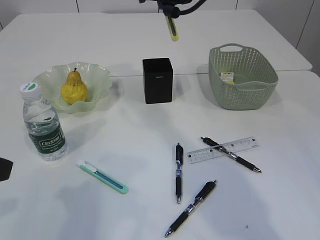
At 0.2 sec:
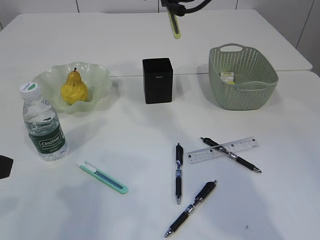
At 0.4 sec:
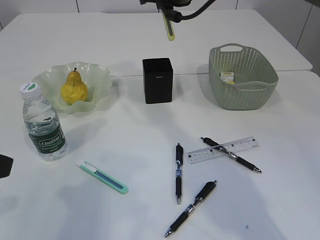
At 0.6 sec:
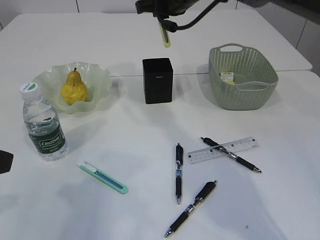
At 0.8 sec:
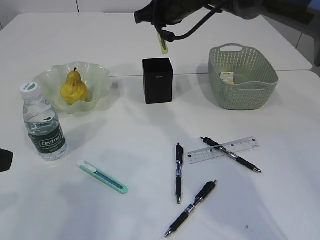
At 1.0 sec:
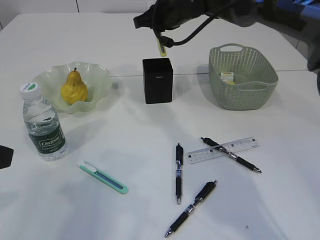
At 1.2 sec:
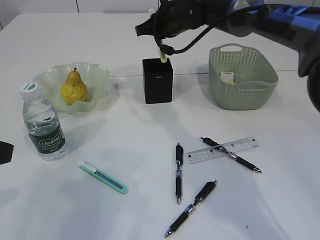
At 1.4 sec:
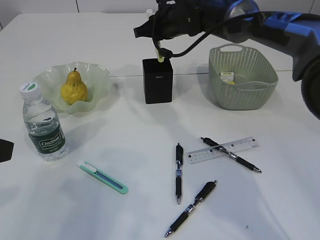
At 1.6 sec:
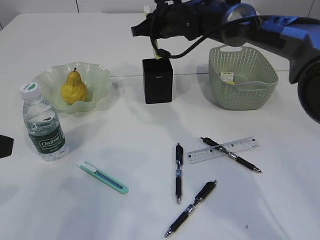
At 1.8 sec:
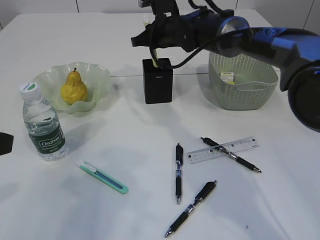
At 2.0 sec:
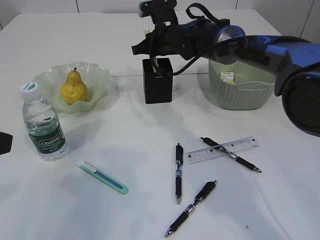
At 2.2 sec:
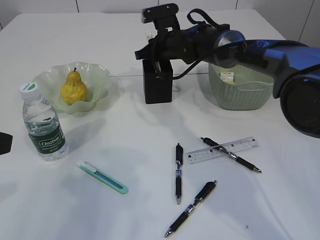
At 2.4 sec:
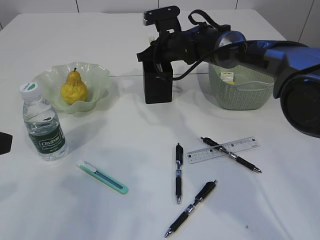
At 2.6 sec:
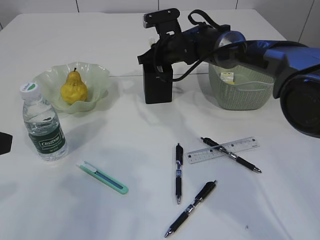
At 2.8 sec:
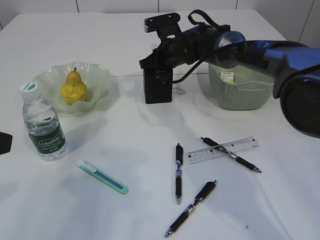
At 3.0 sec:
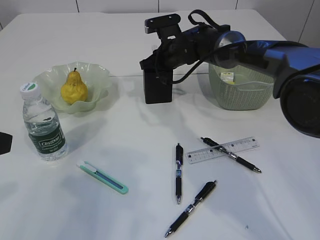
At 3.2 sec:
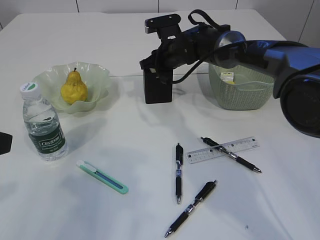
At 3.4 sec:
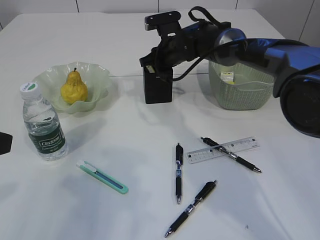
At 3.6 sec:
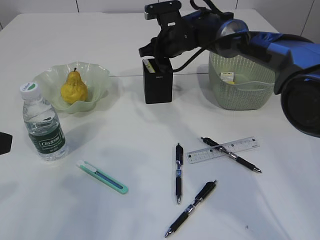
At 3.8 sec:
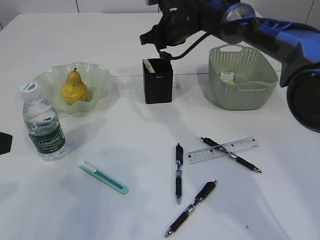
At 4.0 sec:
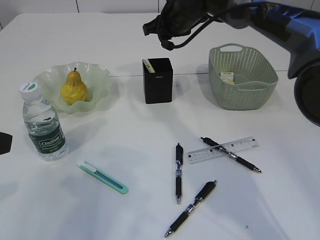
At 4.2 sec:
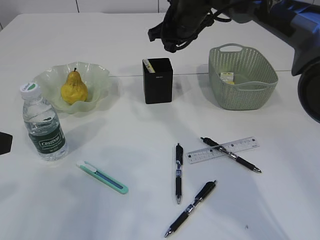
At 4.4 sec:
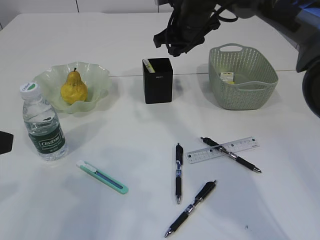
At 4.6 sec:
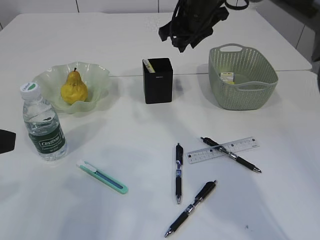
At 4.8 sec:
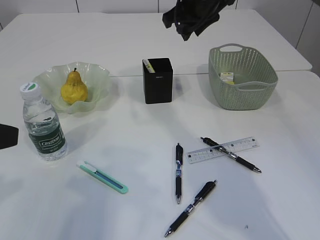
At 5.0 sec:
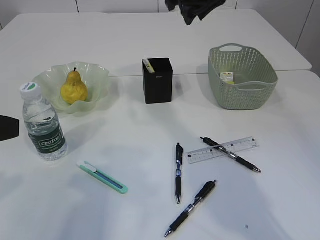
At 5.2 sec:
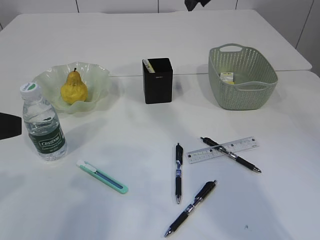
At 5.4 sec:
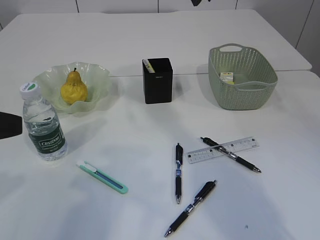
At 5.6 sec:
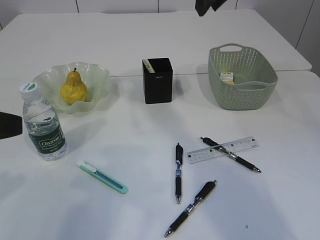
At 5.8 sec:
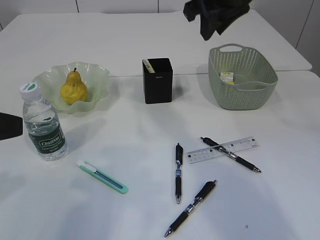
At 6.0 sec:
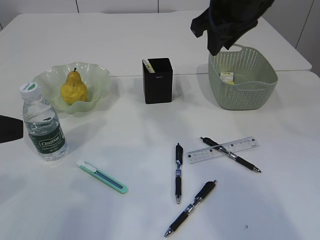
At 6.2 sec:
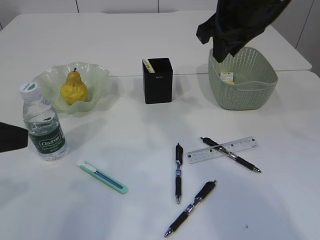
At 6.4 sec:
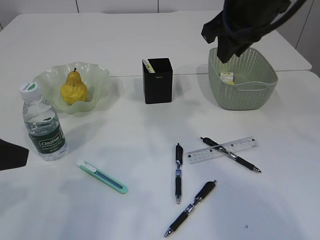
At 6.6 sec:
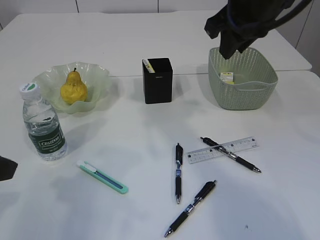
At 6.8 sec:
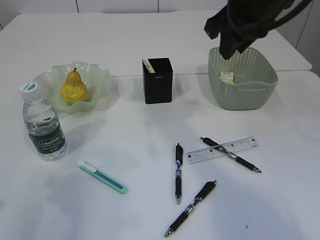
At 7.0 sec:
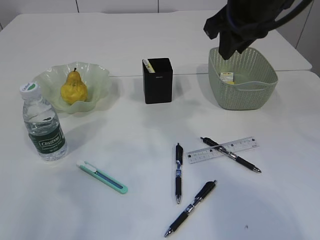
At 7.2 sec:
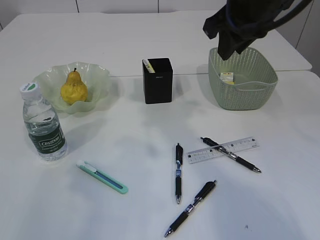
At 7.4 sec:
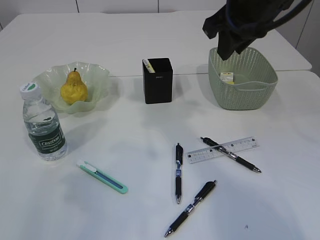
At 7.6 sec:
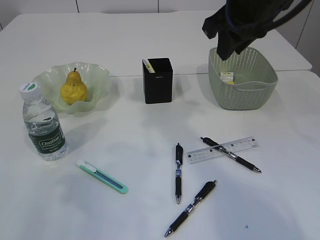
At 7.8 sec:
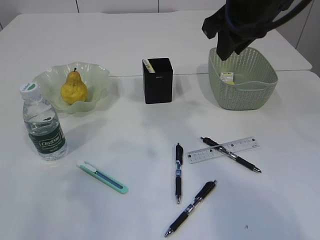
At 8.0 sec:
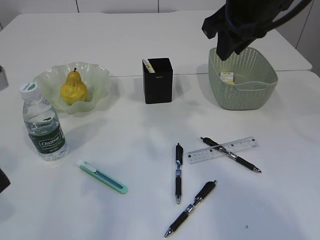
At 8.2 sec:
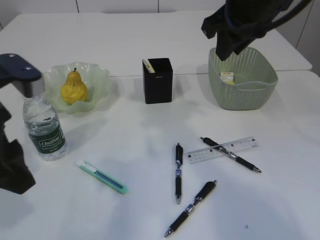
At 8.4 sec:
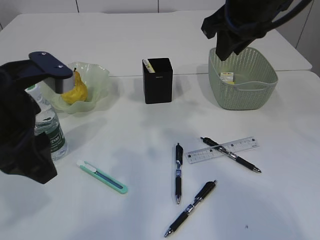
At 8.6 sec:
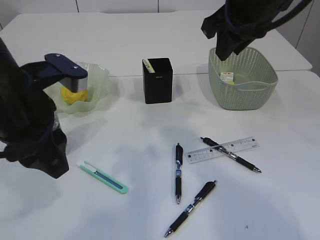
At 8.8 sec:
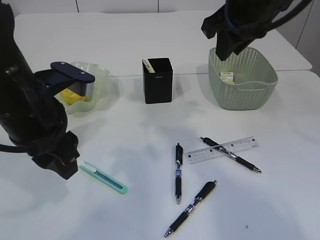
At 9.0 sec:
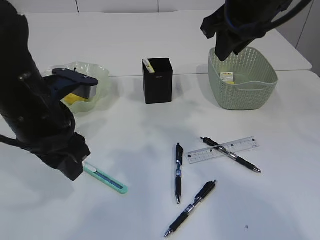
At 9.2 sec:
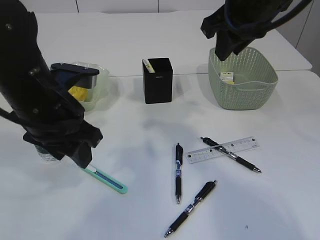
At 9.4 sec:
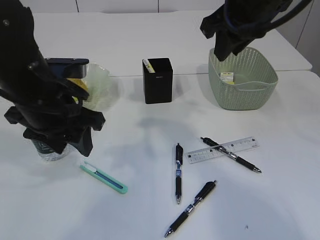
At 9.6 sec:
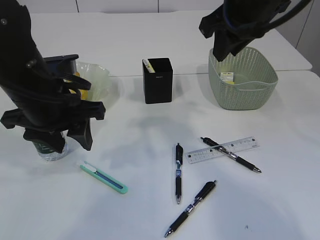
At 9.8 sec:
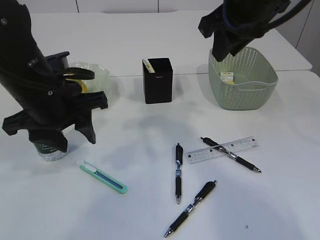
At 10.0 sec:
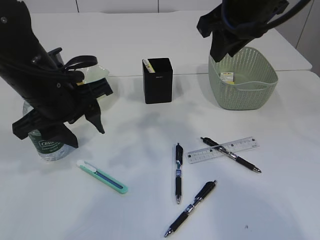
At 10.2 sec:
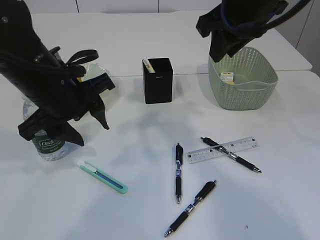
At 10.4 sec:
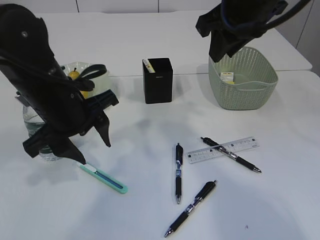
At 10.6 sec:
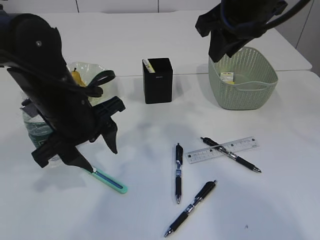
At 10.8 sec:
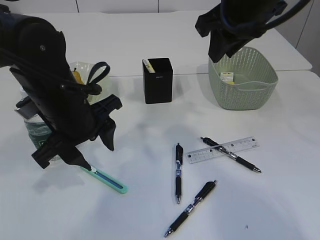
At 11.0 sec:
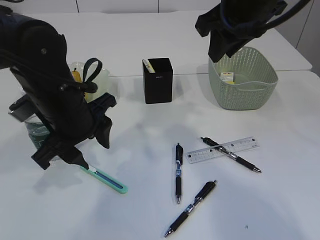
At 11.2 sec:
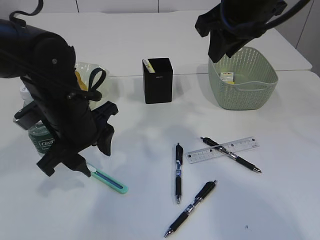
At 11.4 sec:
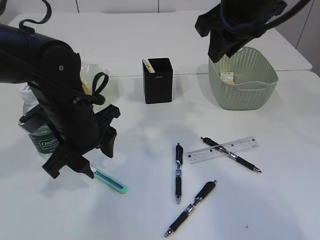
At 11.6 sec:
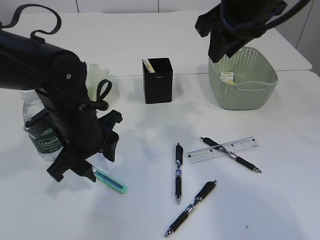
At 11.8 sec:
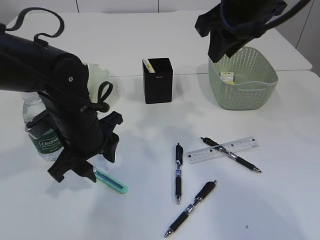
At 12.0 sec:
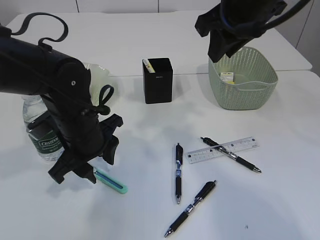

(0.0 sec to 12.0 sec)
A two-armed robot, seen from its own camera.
Step, 0.0 sec - 4.2 sec: place the yellow knife into the pen holder.
0.0 sec - 1.6 sec: The right gripper is displaced downward and forward by approximately 10 cm.
1.6 sec - 3.0 sec: The right gripper travels downward by some 5 cm.
3.0 sec - 4.4 sec: The right gripper moves upward, about 10 cm.
4.4 sec - 6.0 sec: The right gripper travels backward and upward by some 15 cm.
7.6 sec - 9.0 sec: The left gripper is displaced to the right, forward and downward by some 15 cm.
10.4 sec - 12.0 sec: The left gripper heads downward, covering some 5 cm.

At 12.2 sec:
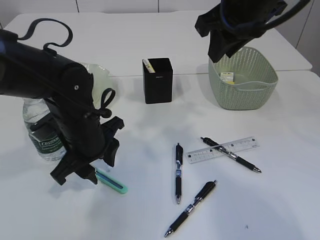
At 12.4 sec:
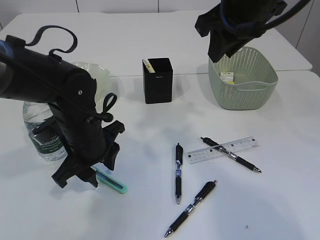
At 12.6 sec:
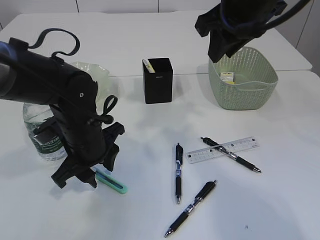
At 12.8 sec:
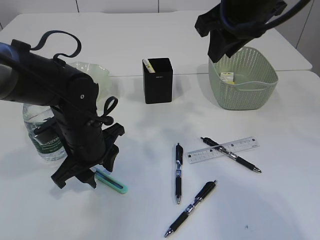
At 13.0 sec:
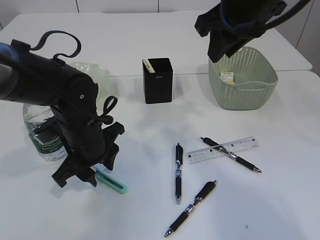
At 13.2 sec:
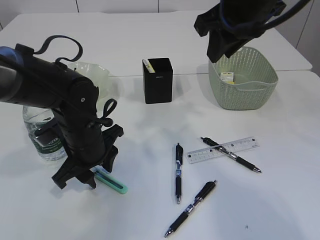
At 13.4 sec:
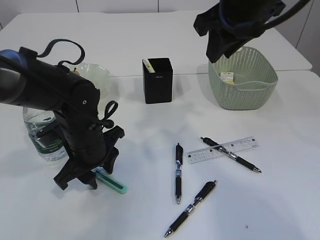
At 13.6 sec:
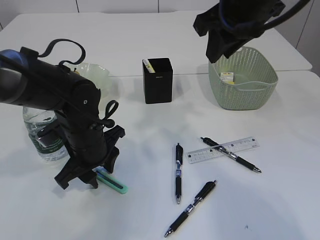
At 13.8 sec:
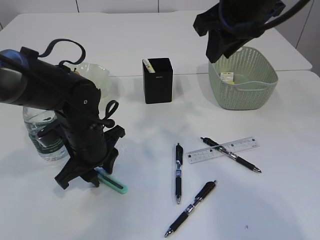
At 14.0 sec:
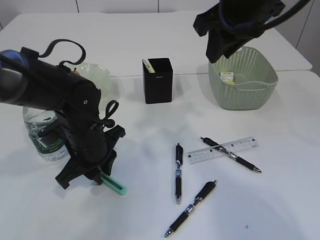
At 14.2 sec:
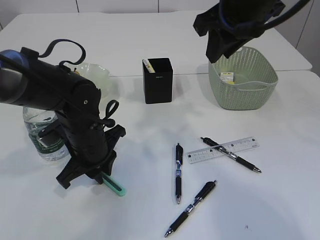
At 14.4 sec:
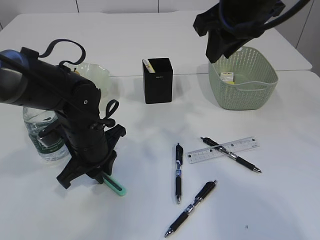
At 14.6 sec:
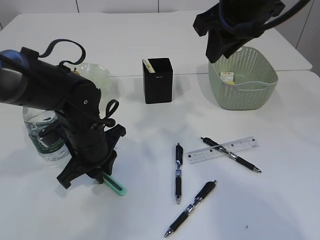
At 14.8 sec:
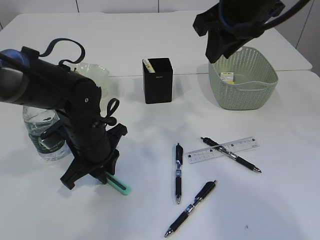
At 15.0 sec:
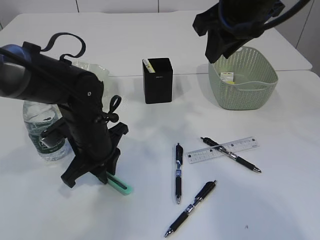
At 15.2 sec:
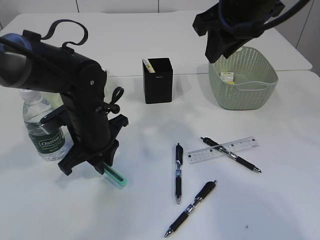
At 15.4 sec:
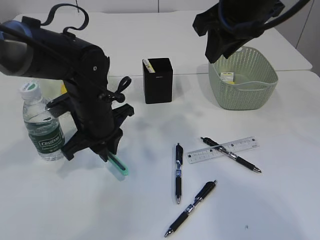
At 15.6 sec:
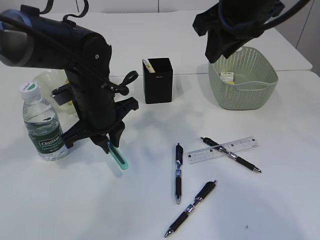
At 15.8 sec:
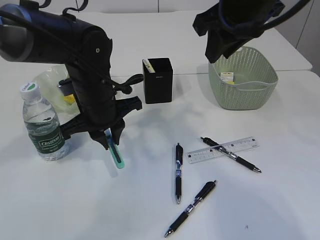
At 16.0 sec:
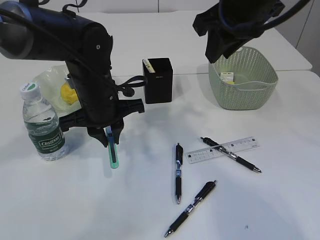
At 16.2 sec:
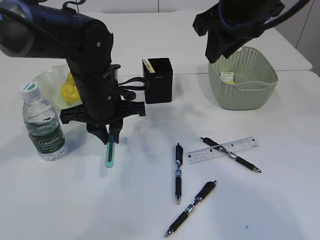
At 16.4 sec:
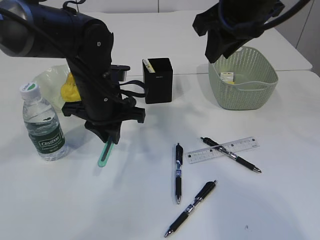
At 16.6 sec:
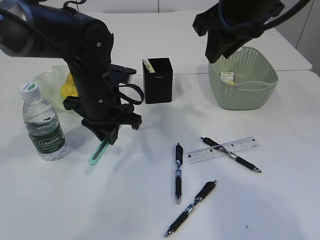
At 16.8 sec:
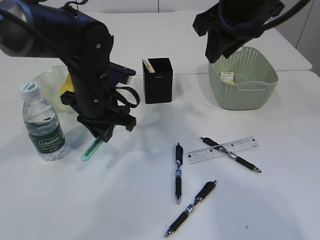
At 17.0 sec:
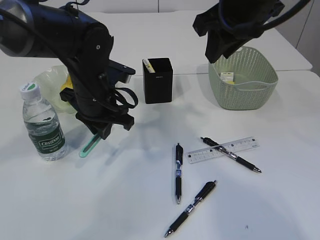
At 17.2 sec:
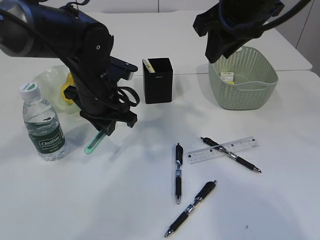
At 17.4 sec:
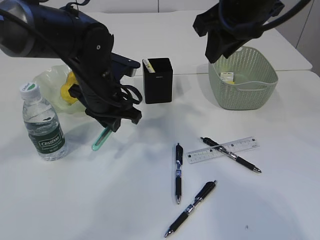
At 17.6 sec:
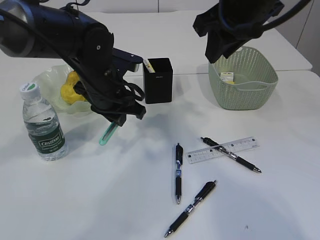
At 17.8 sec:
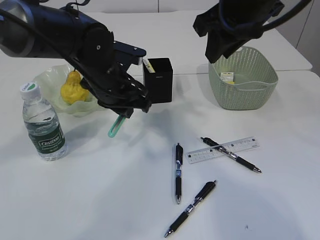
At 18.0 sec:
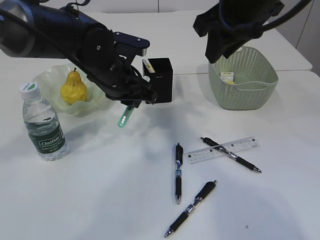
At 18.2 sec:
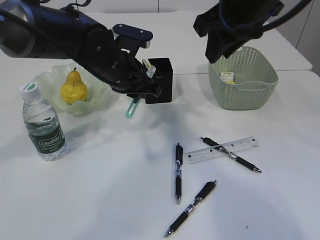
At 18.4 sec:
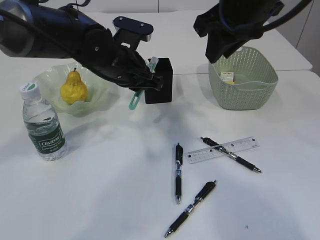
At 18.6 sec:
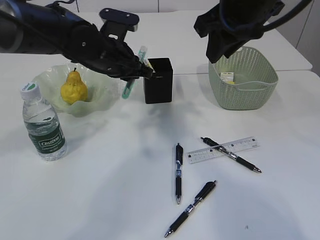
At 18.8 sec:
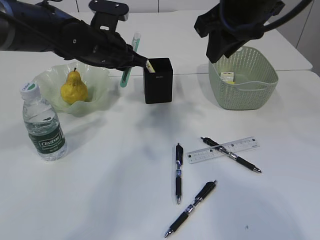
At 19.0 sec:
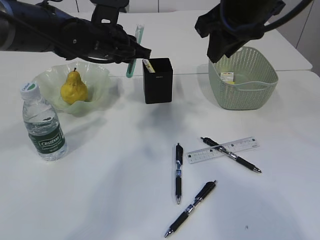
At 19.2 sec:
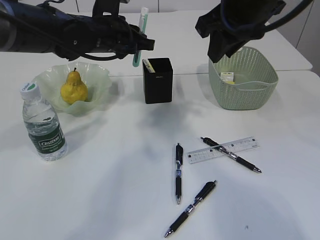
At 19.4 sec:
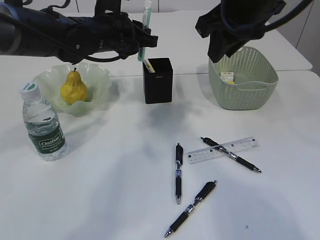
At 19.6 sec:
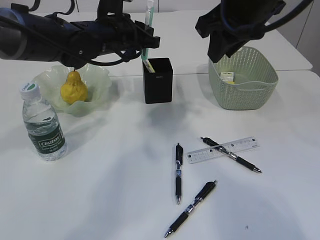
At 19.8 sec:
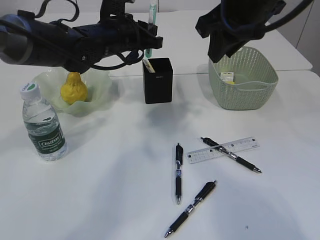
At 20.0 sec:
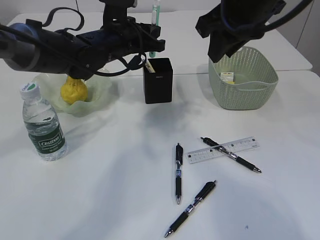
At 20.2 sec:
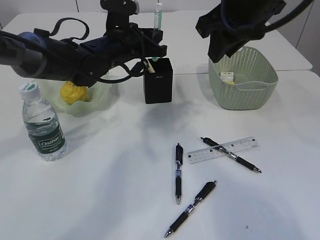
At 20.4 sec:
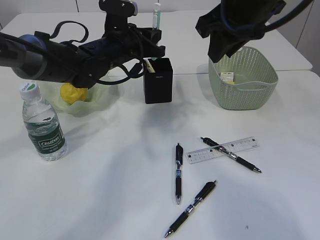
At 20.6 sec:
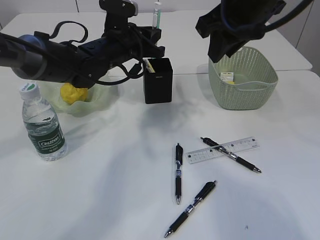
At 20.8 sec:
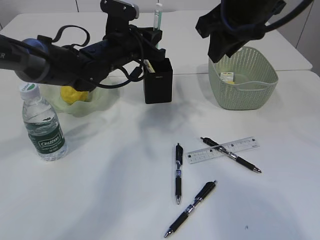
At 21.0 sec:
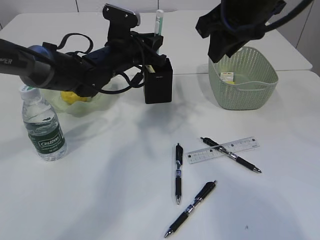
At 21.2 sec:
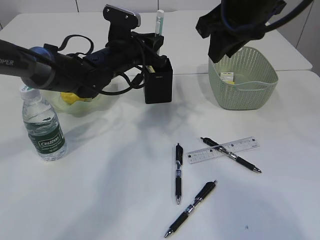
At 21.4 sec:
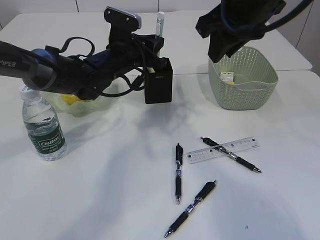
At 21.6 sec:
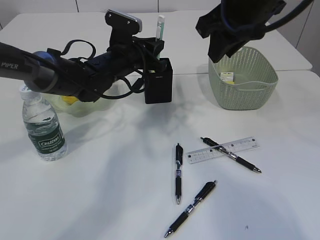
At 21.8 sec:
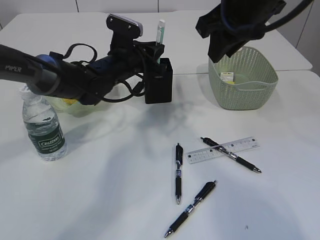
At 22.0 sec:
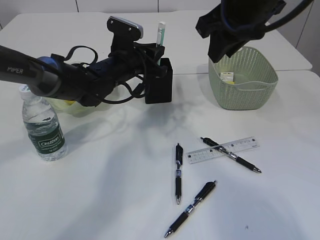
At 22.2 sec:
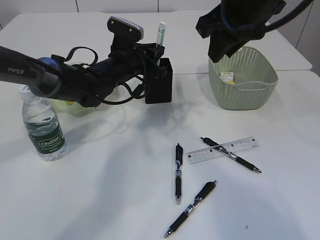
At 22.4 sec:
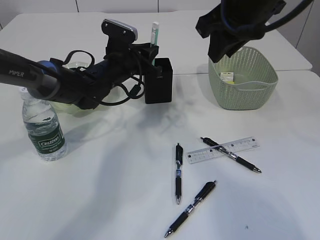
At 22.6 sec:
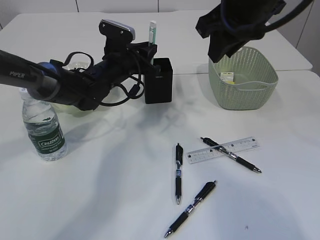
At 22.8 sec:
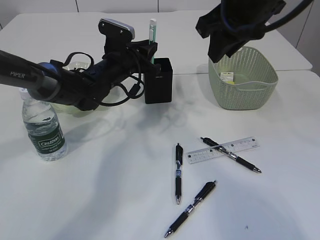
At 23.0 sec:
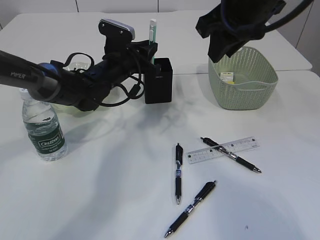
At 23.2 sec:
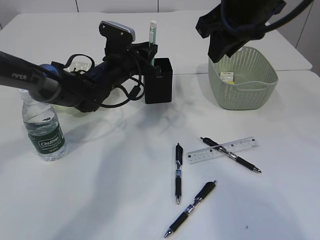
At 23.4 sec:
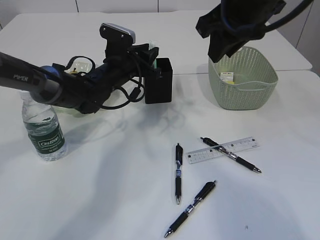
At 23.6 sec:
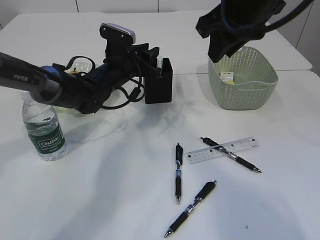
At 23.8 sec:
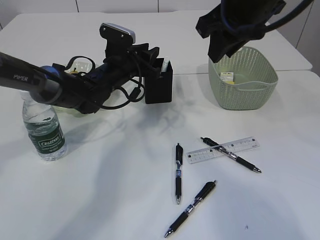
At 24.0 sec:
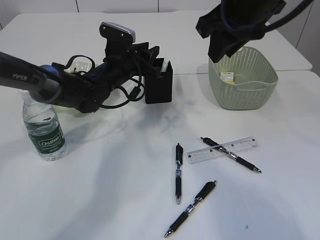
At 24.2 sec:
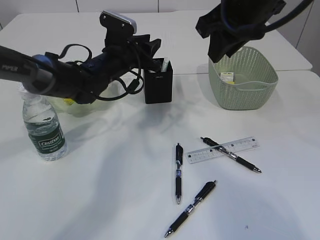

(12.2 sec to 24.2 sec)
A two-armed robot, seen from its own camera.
Step, 12.2 sec - 16.0 sec: pick up the blue knife.
12.2 sec - 15.2 sec: The grippers move only a little.
15.2 sec - 16.6 sec: The left gripper ends up about 5 cm from where it was.
16.6 sec - 18.2 sec: The left gripper changes place by about 5 cm.
18.2 sec - 19.8 sec: The left gripper goes about 5 cm forward.
19.8 sec - 21.2 sec: The grippers move only a little.
21.2 sec - 24.2 sec: There are only small adjustments of the grippers.
